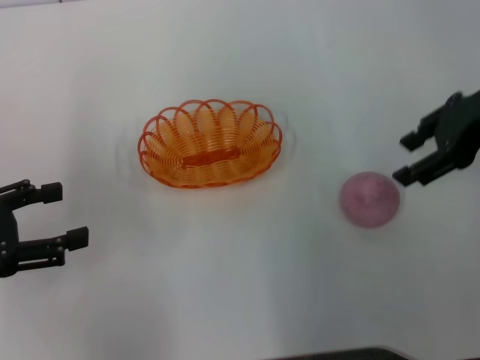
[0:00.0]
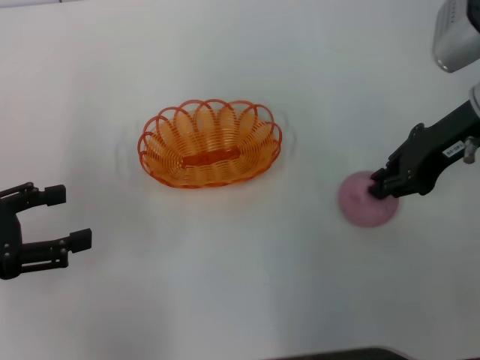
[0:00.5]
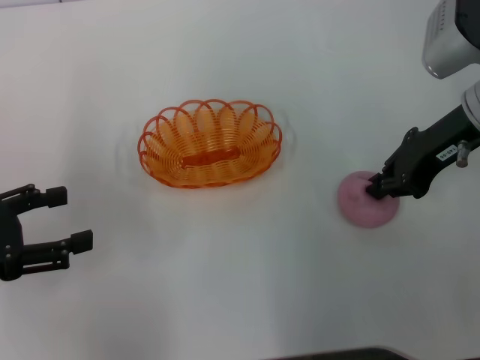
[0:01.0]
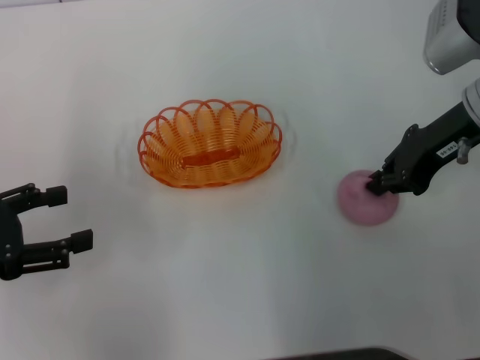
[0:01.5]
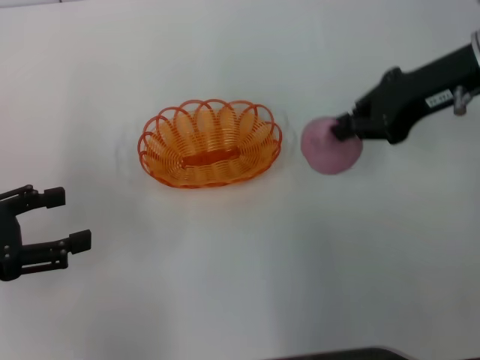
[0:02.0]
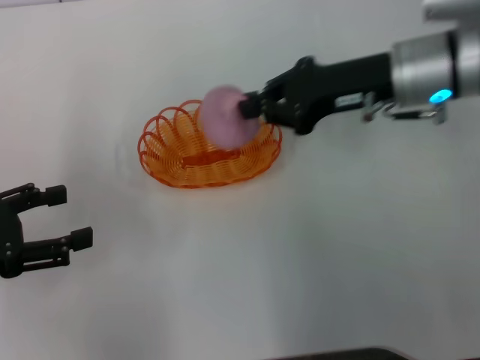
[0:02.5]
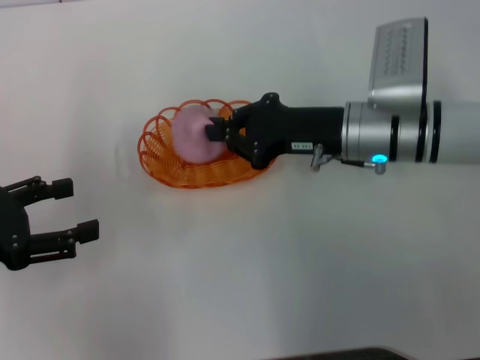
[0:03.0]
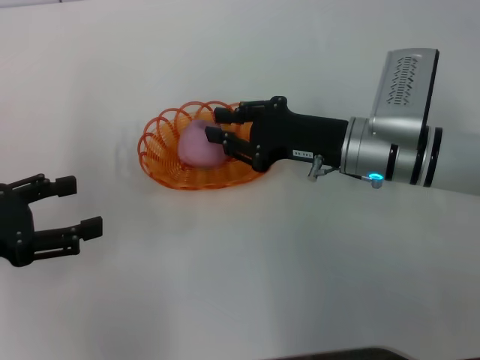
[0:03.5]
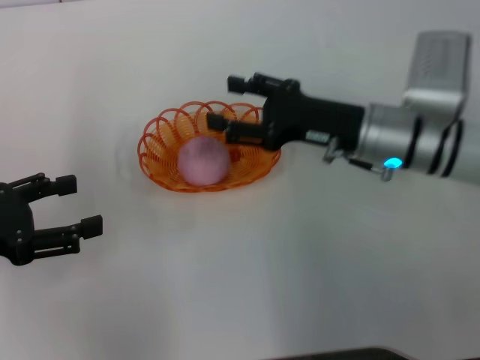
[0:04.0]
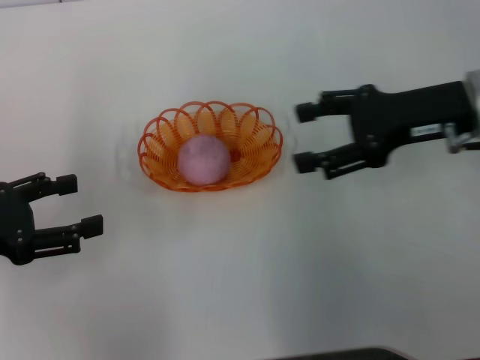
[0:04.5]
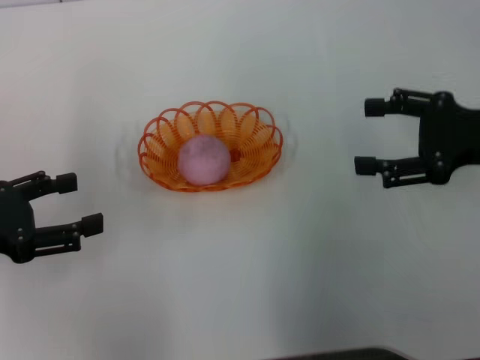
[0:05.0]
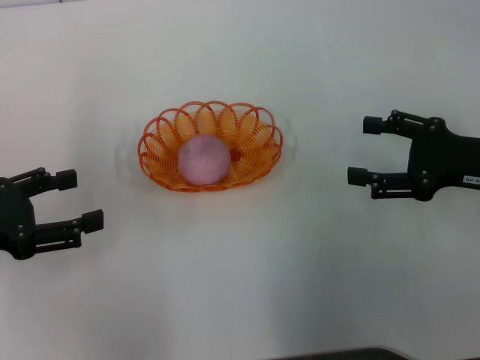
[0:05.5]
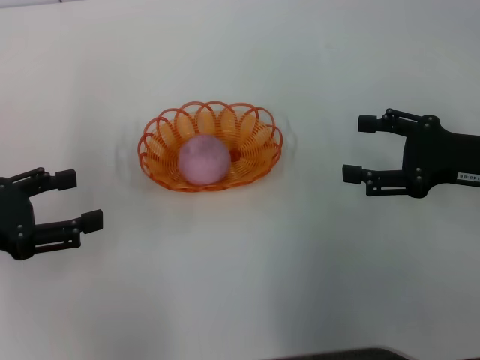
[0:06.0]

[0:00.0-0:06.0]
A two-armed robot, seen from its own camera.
Step, 0:02.0 to 0:04.0: Place the peach into the basket with the right gripper.
0:00.0 to 0:02.0: The right gripper closes its fingers.
0:02.0 to 0:04.0: The right gripper goes some 15 cm downward and to the left, and opens its fingers.
0:04.0 to 0:06.0: The right gripper heads to the right and backward, covering roughly 15 cm.
